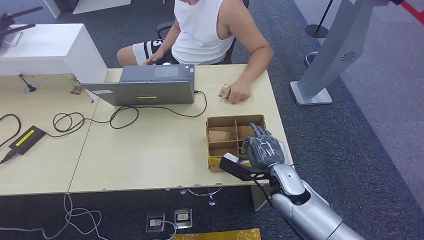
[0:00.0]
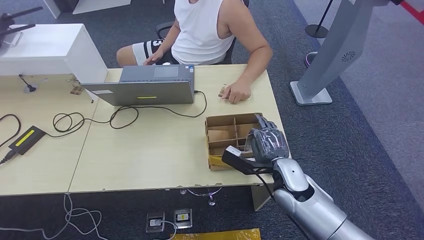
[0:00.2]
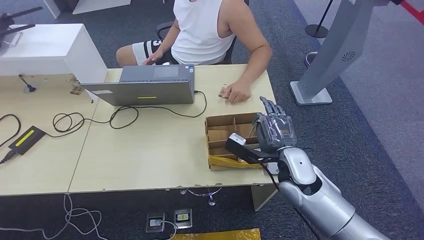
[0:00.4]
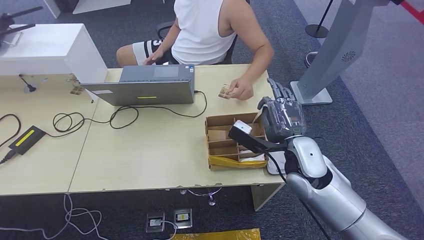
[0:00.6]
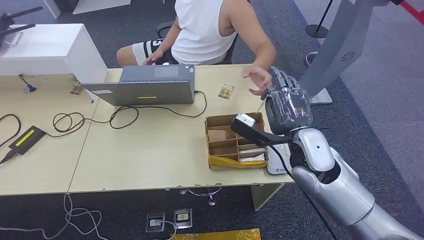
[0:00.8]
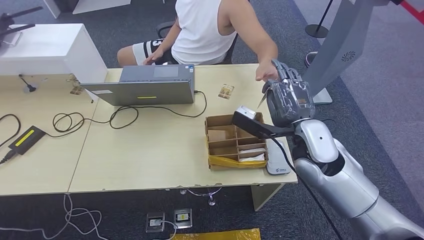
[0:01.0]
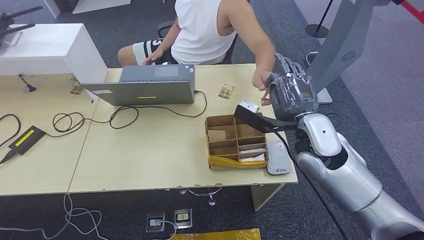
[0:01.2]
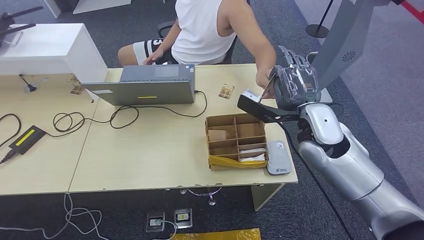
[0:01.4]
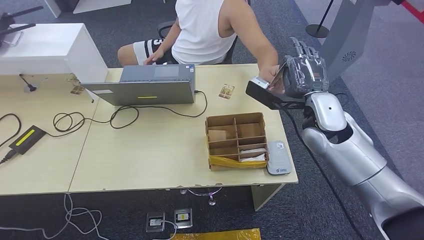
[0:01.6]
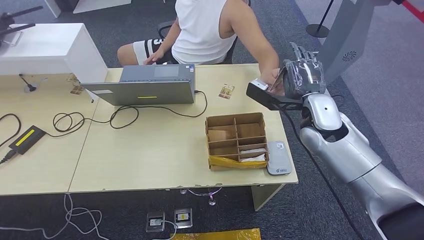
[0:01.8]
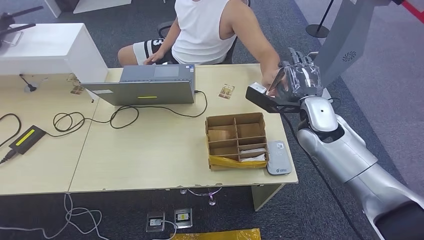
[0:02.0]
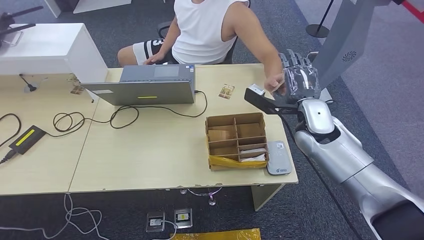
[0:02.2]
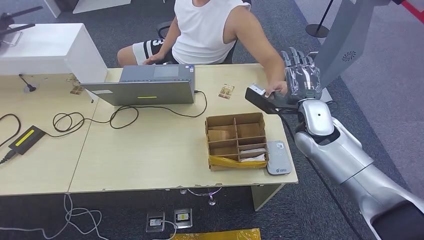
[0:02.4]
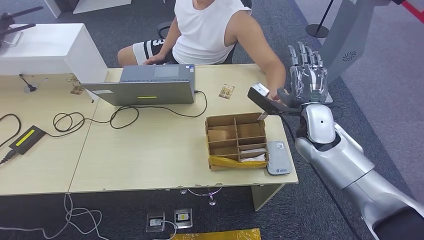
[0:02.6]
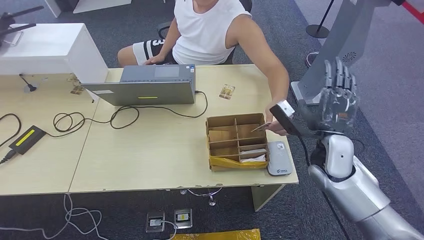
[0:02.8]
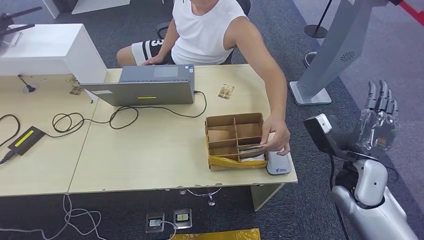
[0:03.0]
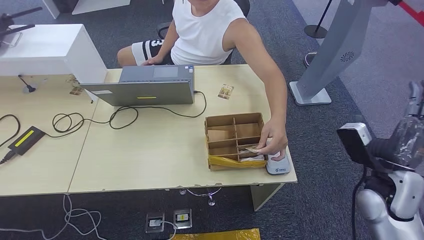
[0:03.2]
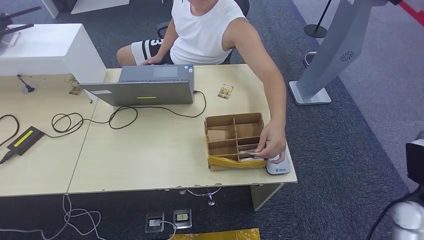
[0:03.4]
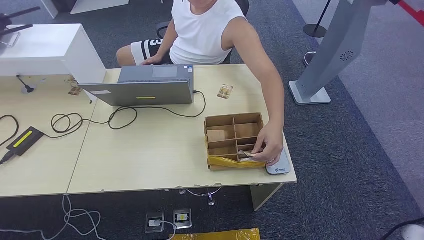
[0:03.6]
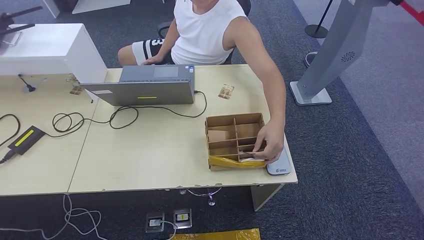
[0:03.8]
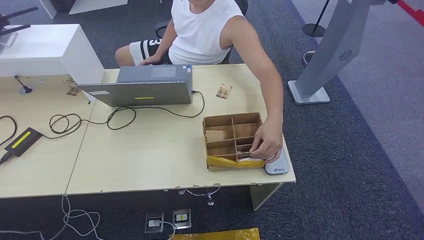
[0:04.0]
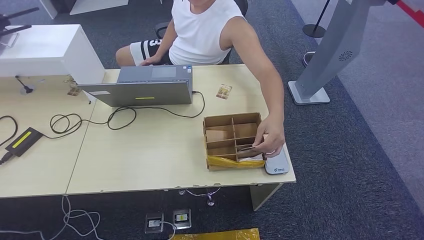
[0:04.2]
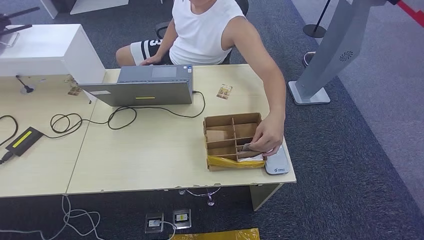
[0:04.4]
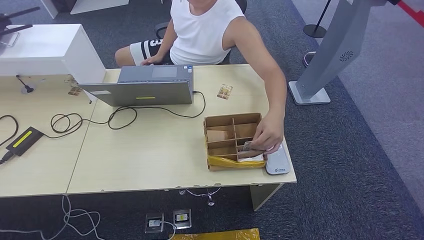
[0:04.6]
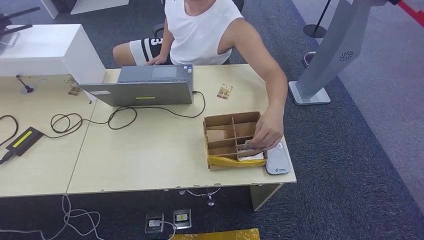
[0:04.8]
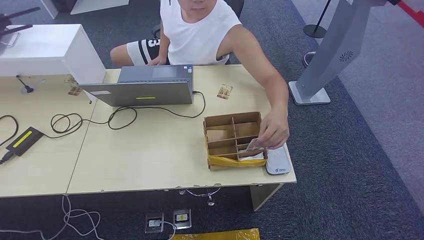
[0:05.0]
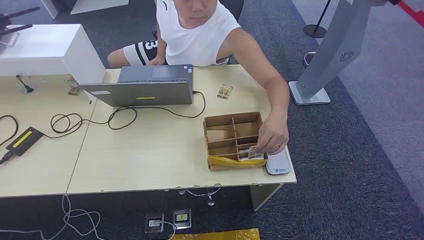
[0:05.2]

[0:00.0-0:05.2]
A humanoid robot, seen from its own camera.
Step, 0:00.8 to 0:05.2: Hand the room key to the person.
0:00.0 to 0:01.8: The right hand heads upward and forward, covering approximately 20 cm.
0:01.8 to 0:03.4: The right hand heads to the right, backward and downward, covering some 30 cm. The left hand goes some 5 cm backward.
0:03.4 to 0:05.2: The right hand moves downward, backward and to the left, approximately 40 cm.

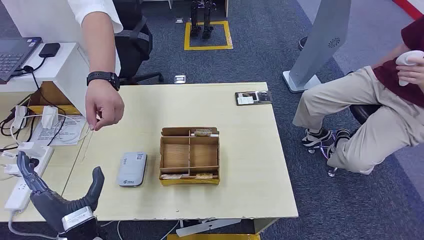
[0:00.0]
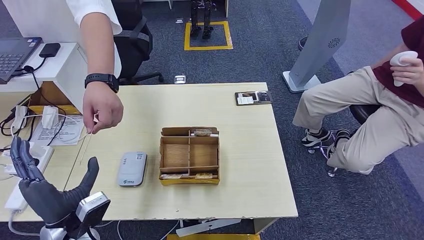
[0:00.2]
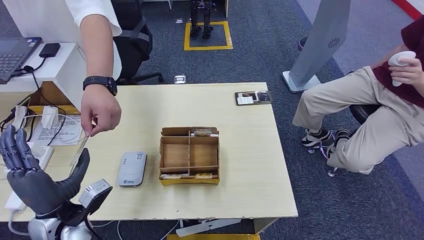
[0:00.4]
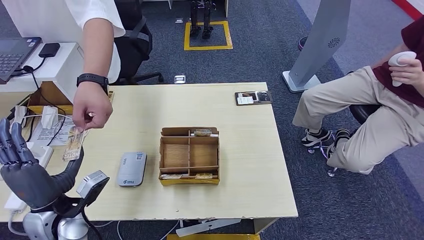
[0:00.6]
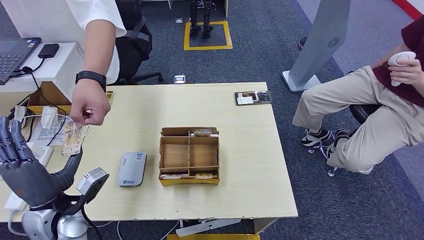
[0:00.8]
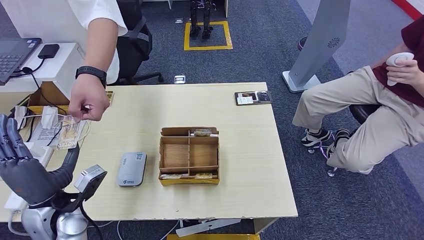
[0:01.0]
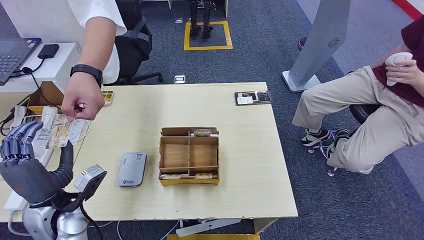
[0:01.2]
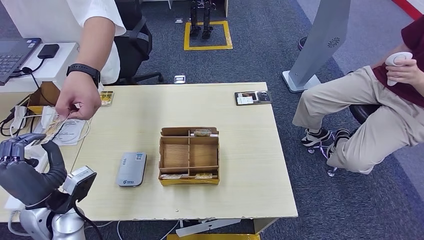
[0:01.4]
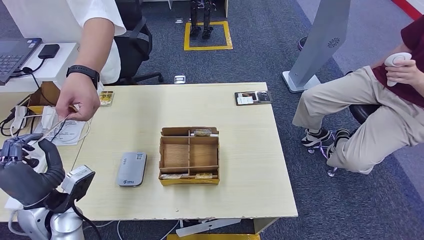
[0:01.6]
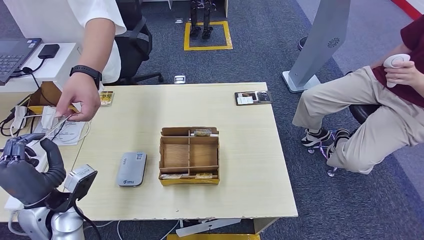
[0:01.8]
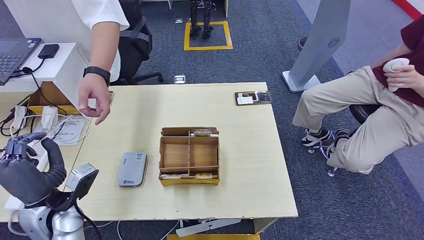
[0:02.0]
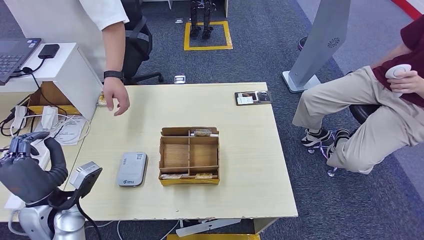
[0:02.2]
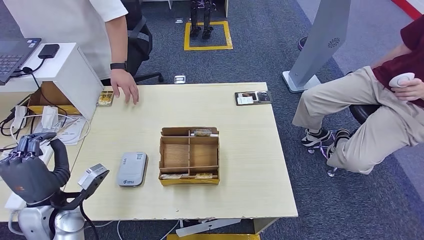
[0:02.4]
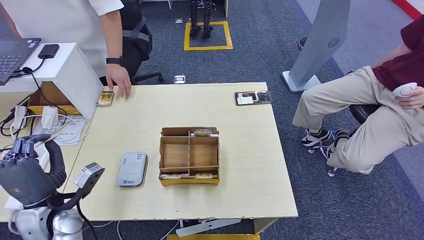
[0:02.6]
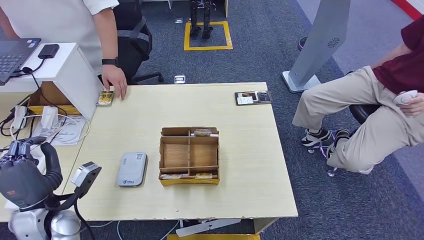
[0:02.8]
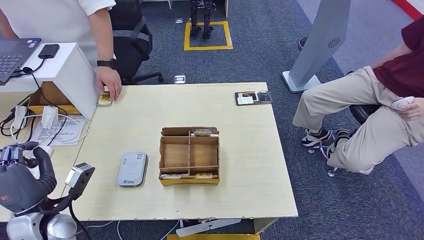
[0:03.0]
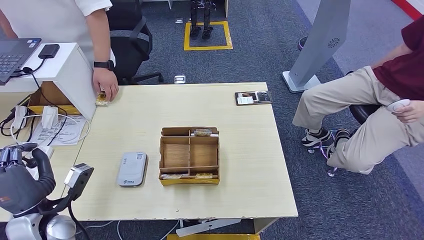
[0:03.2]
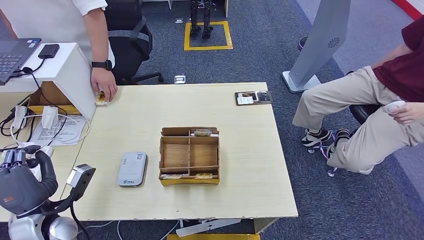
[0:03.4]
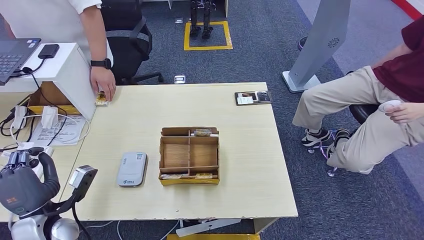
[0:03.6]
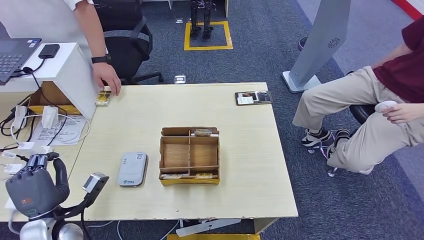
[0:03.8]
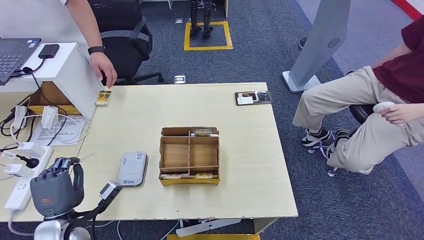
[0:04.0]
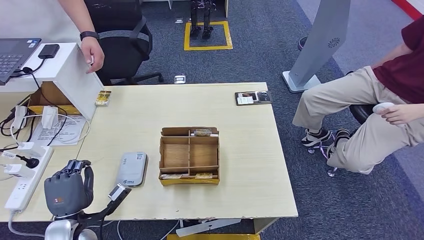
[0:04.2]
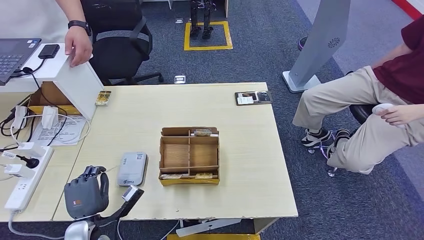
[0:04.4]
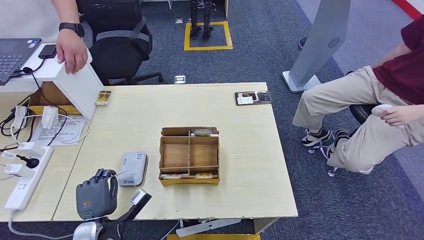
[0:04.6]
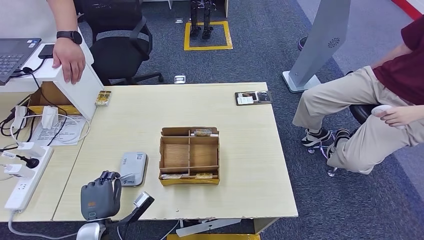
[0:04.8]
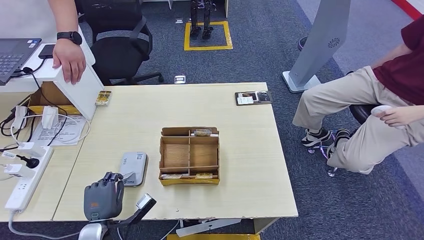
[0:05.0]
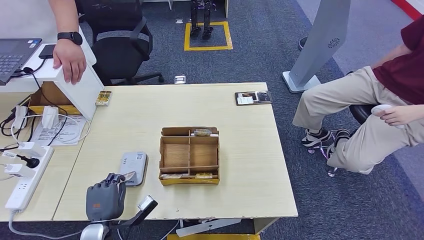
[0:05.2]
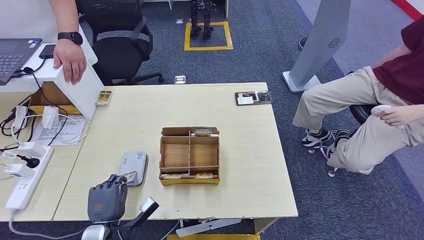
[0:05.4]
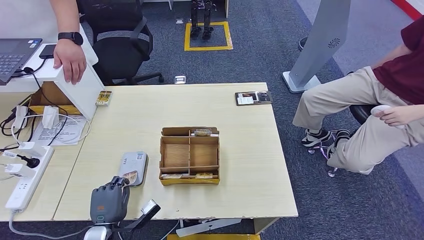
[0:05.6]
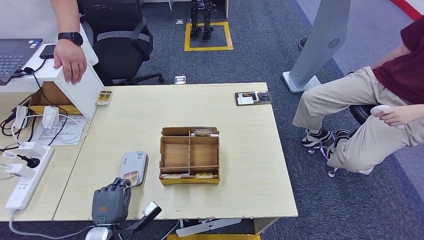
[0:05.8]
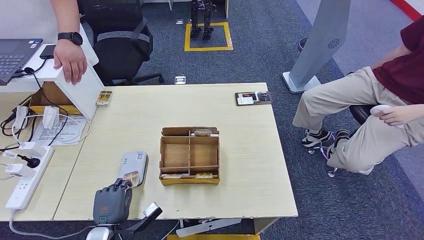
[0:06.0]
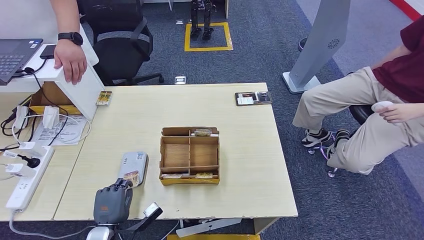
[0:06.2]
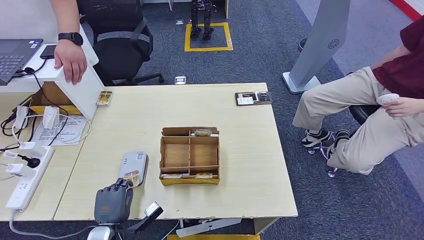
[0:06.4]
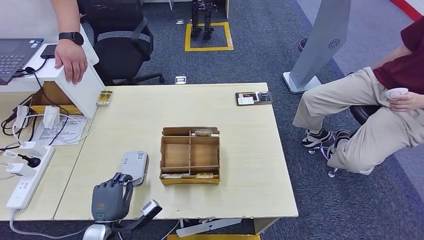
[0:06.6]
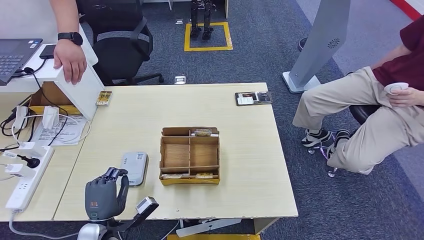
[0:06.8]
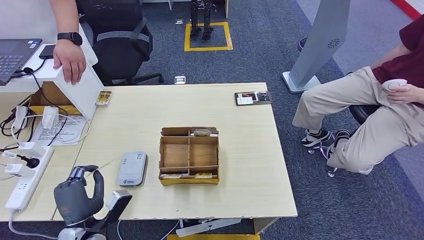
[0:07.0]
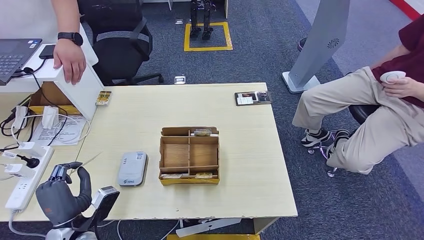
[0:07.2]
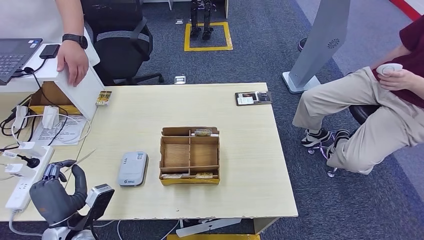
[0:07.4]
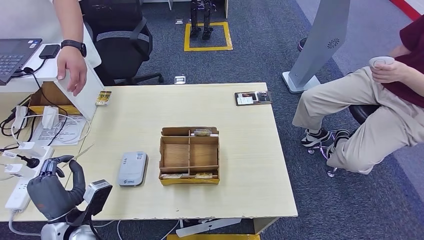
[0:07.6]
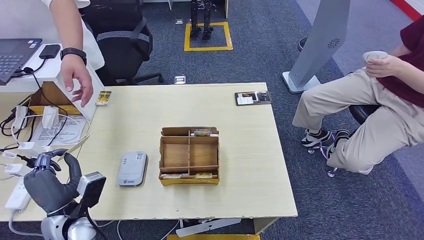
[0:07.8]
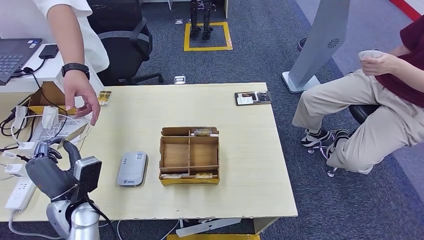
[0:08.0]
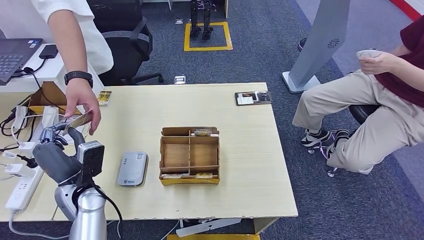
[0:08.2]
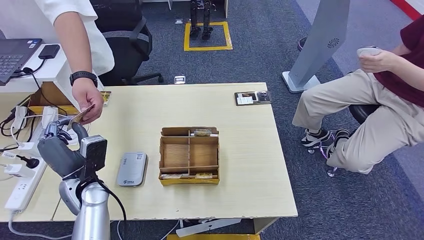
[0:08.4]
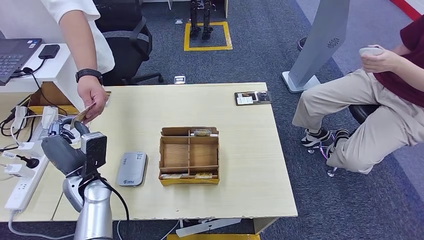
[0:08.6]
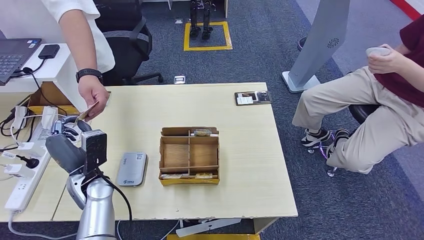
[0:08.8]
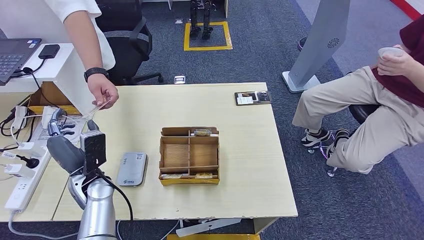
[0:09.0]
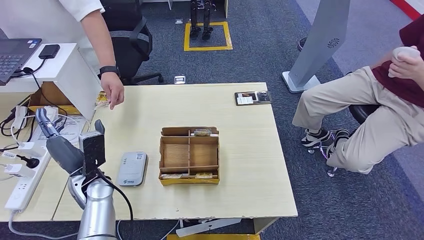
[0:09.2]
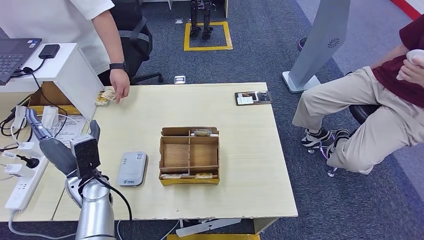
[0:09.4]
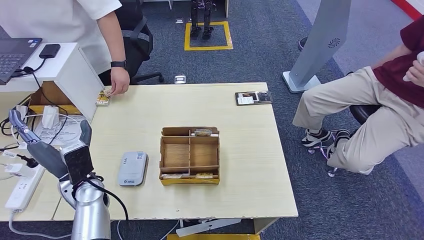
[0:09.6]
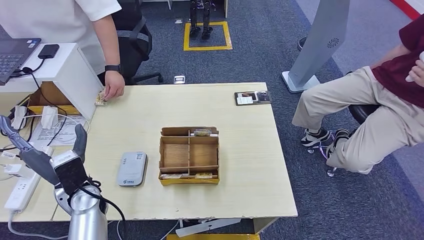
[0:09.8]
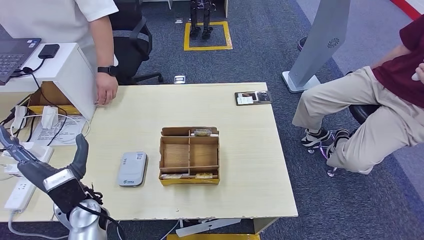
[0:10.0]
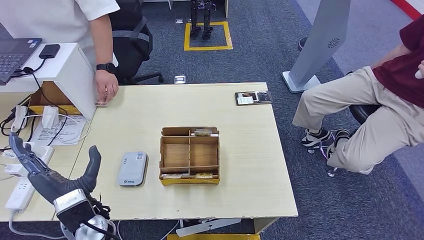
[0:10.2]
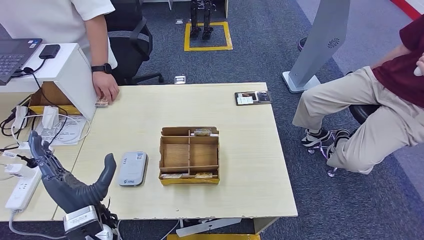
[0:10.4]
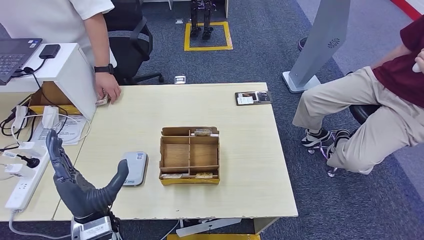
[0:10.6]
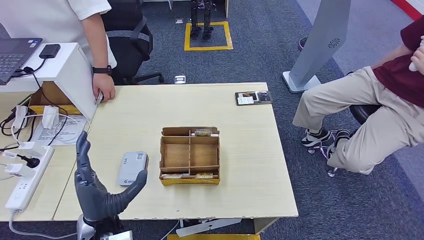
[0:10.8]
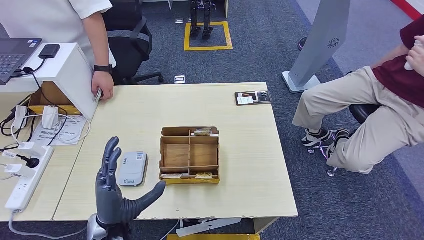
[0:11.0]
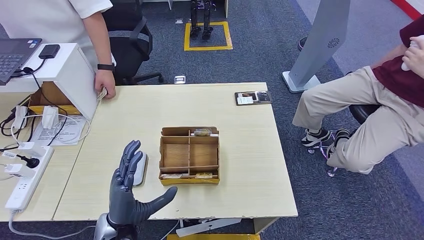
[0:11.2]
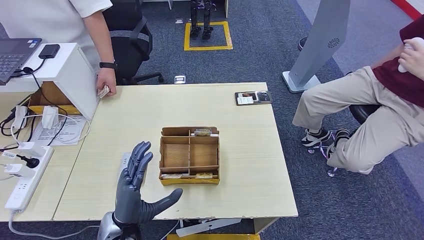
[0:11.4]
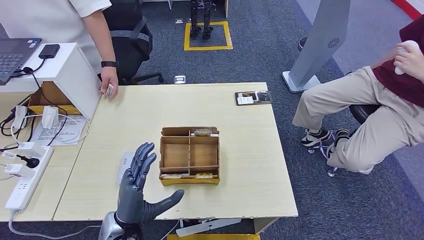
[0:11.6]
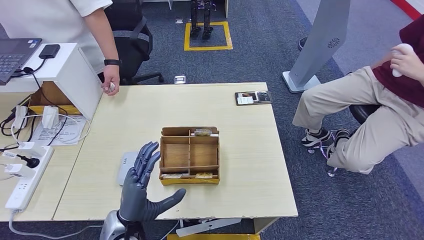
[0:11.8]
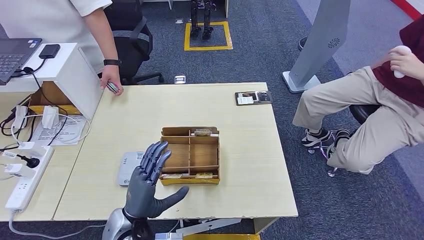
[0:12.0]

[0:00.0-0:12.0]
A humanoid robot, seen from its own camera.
Step, 0:00.0 to 0:01.4: Take the ID card from the person's hand.
Step, 0:02.0 to 0:05.4: Place the ID card on the card reader.
Step, 0:06.0 to 0:09.4: Hand the ID card to the person.
0:01.6 to 0:03.0: The hands make only small movements.
0:03.0 to 0:04.4: The left hand moves downward and to the right, roughly 10 cm.
0:04.4 to 0:06.0: The left hand heads downward, covering some 5 cm.
0:06.0 to 0:07.6: The left hand travels upward by roughly 10 cm.
0:07.6 to 0:09.0: The left hand moves forward, about 10 cm.
0:09.0 to 0:10.4: The left hand is displaced backward by some 10 cm.
0:10.4 to 0:12.0: The left hand shifts by approximately 5 cm.
